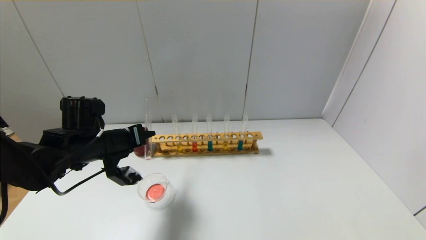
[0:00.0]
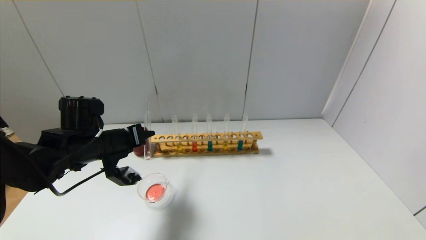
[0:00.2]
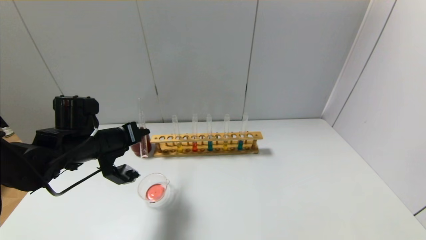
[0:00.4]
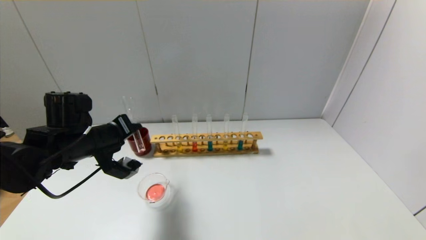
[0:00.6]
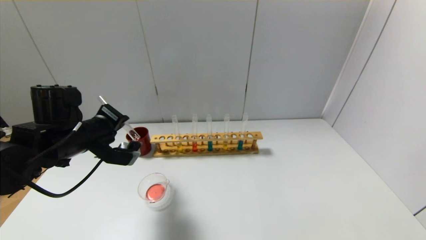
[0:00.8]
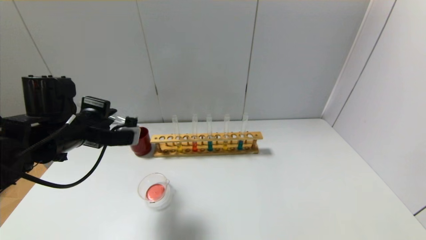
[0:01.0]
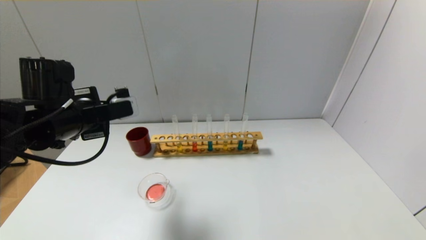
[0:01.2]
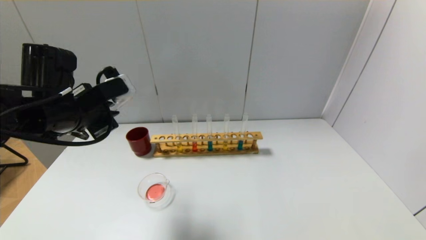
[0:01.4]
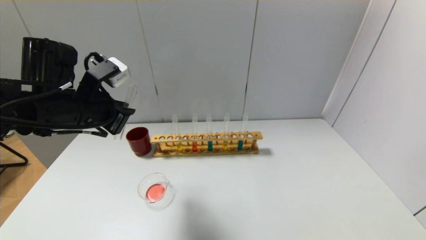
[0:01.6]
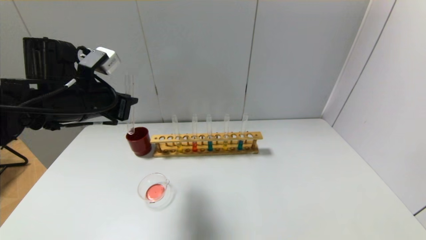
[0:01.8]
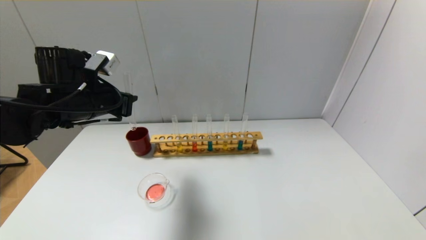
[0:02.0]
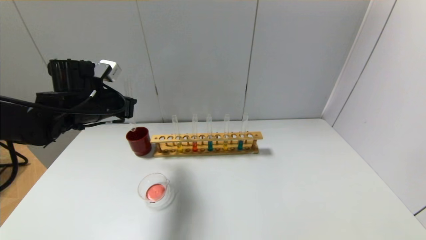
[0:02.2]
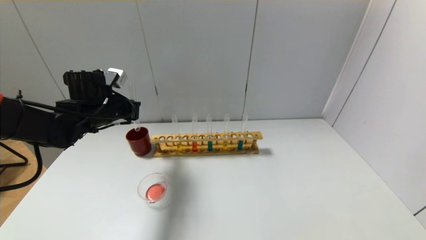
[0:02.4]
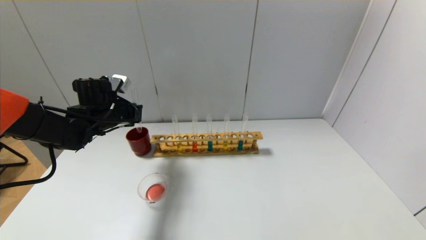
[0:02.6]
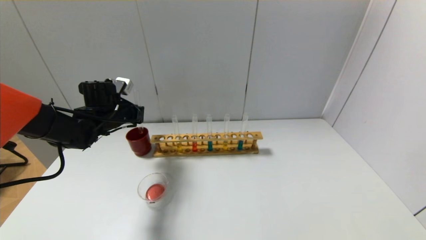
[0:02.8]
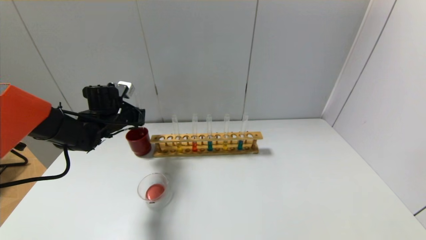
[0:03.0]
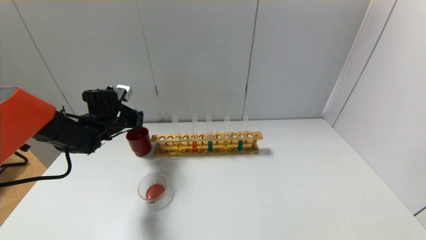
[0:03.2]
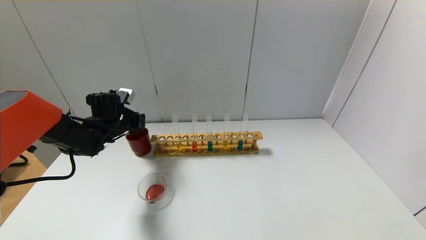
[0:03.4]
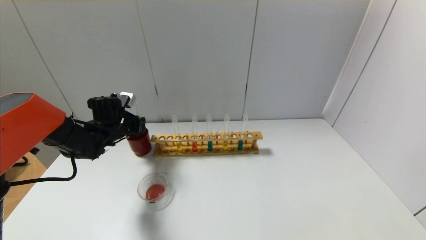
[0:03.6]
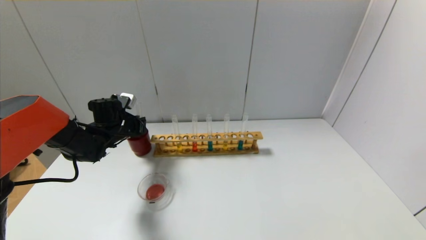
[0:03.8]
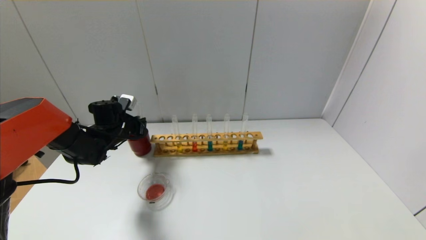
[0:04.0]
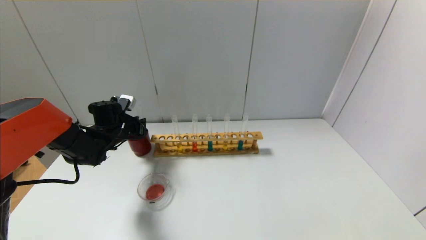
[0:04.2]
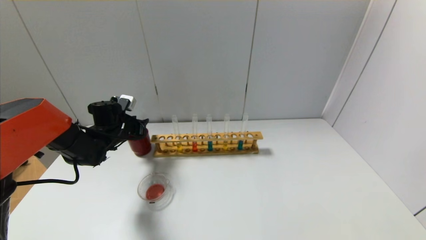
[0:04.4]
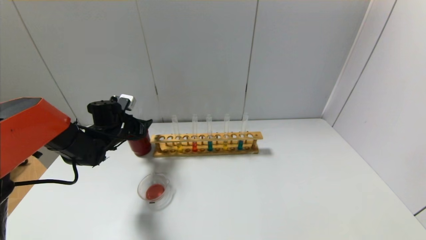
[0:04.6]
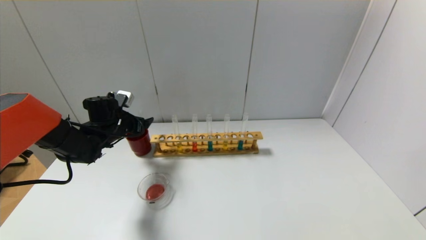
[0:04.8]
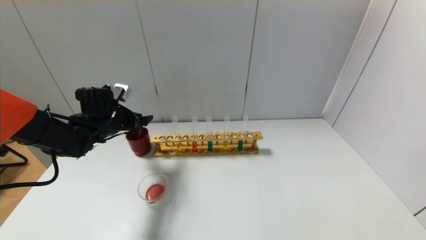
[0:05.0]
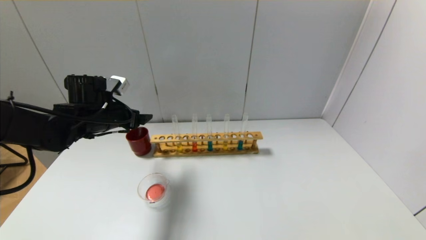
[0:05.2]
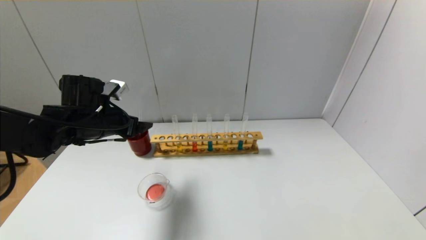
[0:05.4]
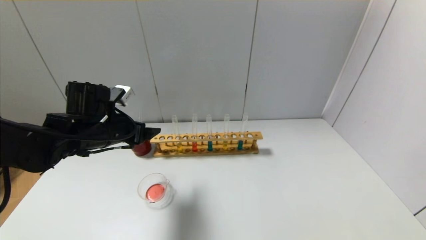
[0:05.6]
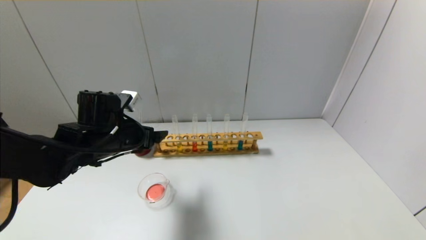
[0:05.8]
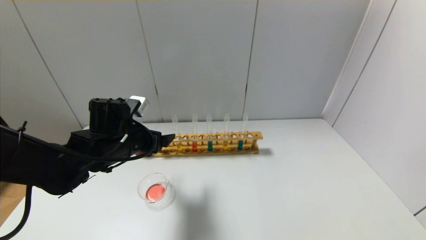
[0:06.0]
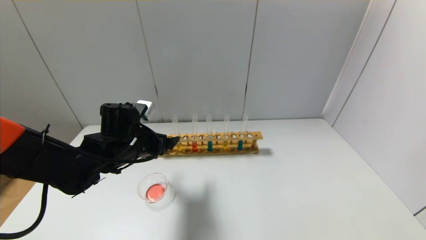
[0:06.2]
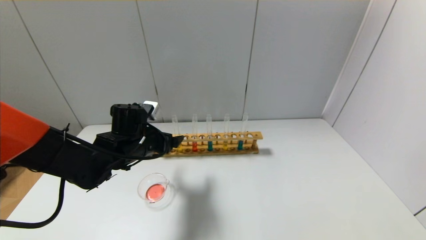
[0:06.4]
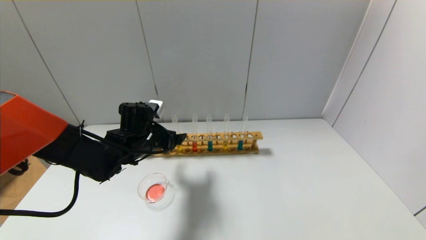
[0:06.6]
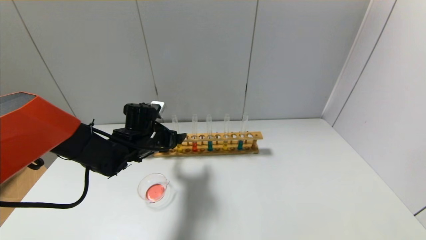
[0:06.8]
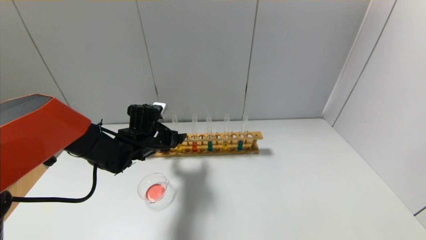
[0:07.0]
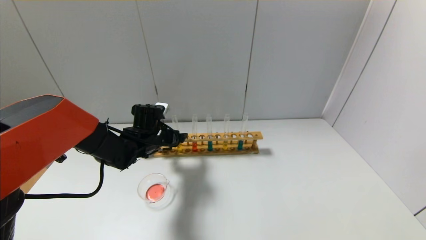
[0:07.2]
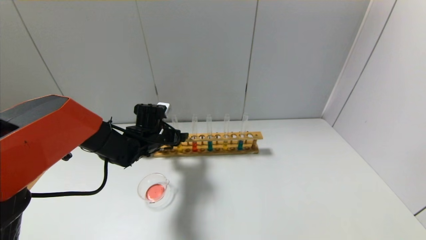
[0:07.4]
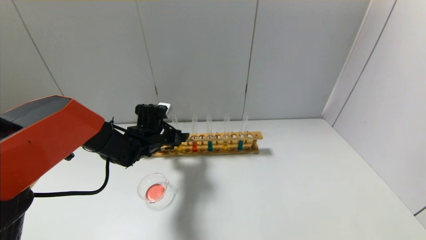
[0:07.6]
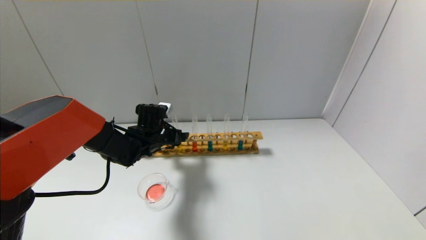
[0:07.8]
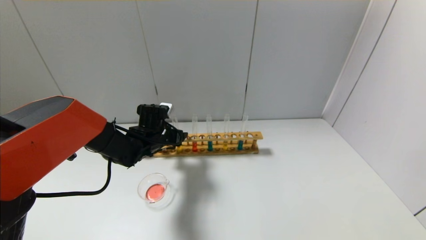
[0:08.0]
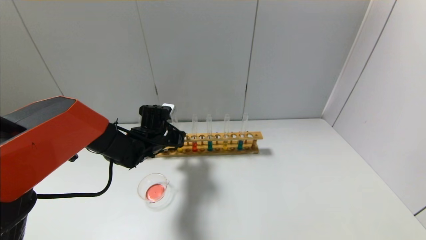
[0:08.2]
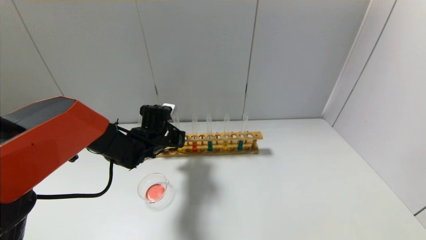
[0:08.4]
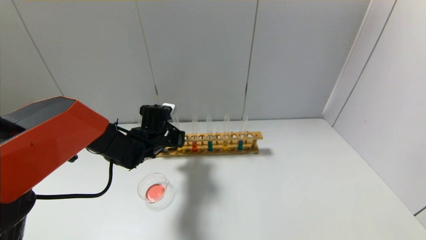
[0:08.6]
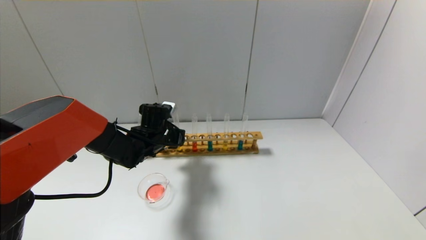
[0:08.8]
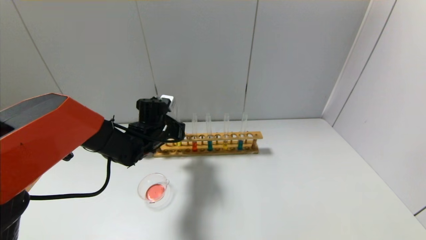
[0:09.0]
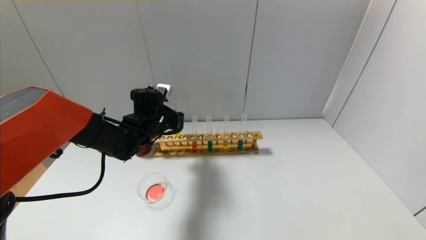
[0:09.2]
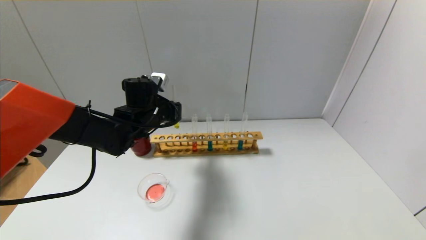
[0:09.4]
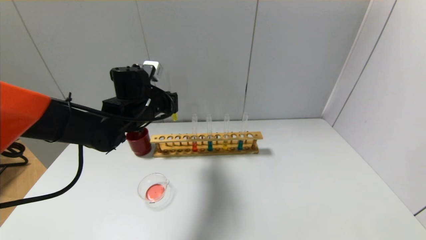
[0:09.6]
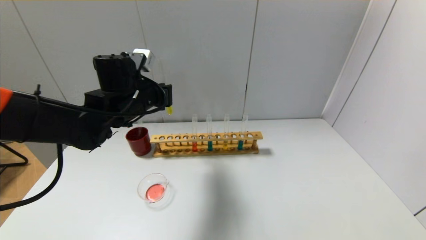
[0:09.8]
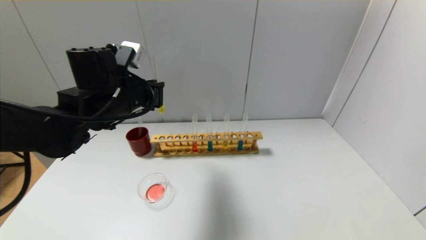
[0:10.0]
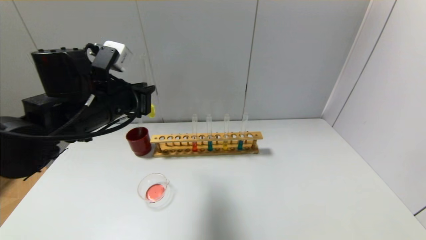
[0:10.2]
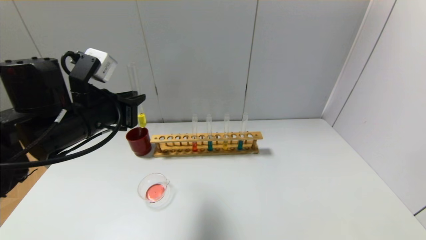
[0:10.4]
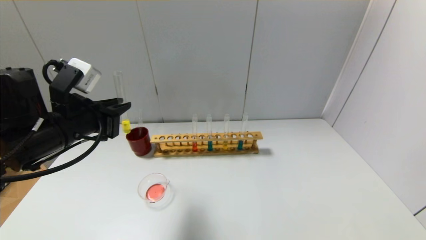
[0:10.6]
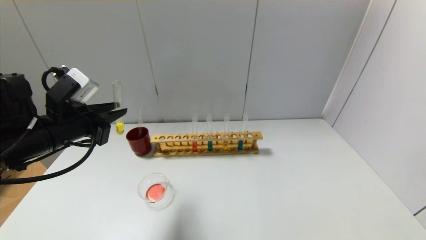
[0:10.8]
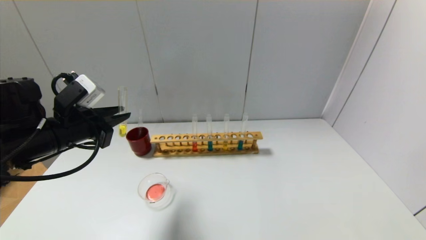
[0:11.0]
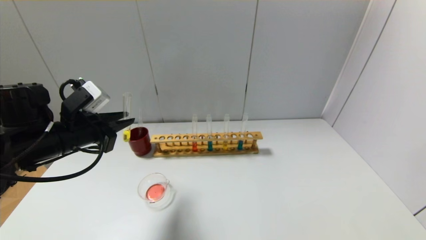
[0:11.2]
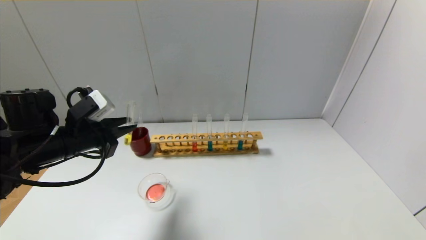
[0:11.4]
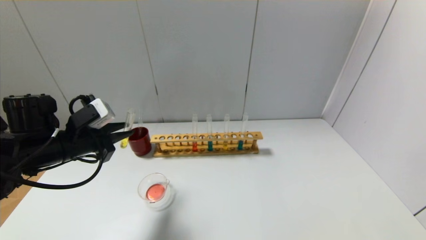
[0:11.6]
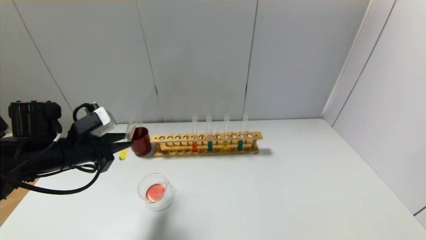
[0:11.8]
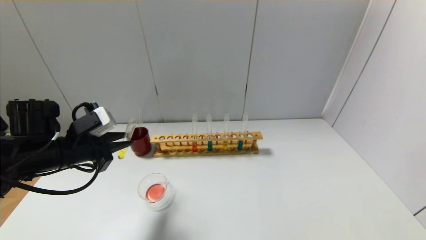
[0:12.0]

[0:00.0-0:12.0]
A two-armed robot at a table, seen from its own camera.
Step, 0:00.6 to 0:04.6: Place the test tube into the brown cup with the left gripper.
Step, 0:04.8 to 0:08.4: Grasp the yellow reagent with the left gripper.
0:00.0 to 0:01.6: The left gripper heads upward, covering approximately 10 cm.
0:01.6 to 0:03.0: The left gripper heads forward and downward, covering some 20 cm.
0:03.0 to 0:04.4: The left gripper opens.
0:04.4 to 0:06.0: The left gripper heads backward, to the right and upward, covering some 15 cm, and opens up.
0:06.0 to 0:07.6: The left gripper goes about 10 cm forward and downward.
0:07.6 to 0:09.0: The left gripper closes its fingers.
0:09.0 to 0:10.4: The left gripper travels backward, upward and to the left by approximately 20 cm.
0:10.4 to 0:12.0: The left gripper goes about 10 cm downward and to the left.

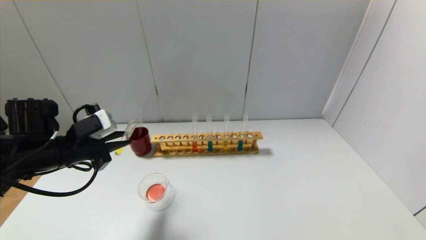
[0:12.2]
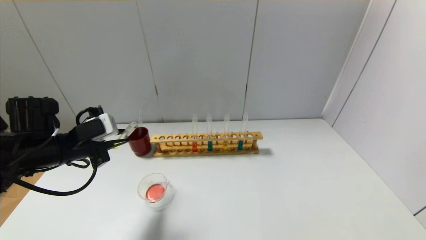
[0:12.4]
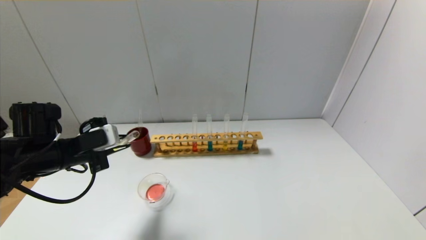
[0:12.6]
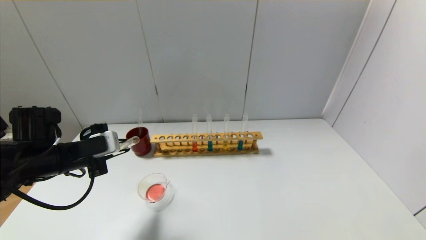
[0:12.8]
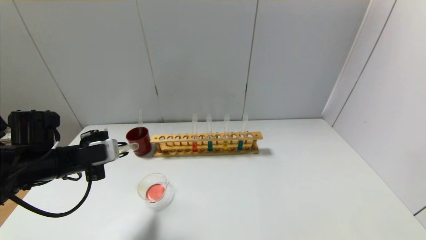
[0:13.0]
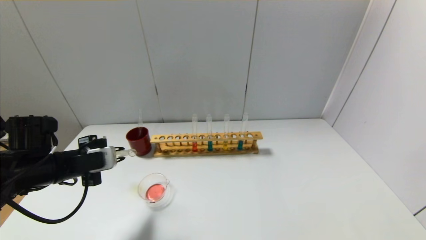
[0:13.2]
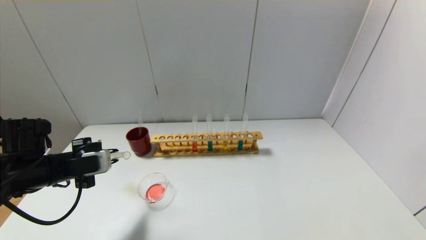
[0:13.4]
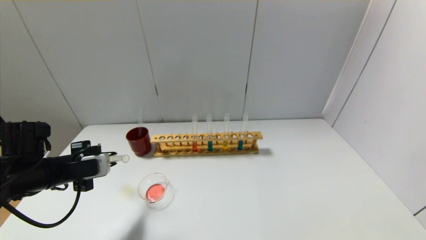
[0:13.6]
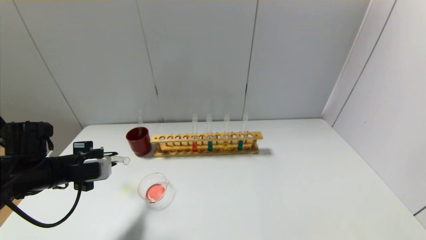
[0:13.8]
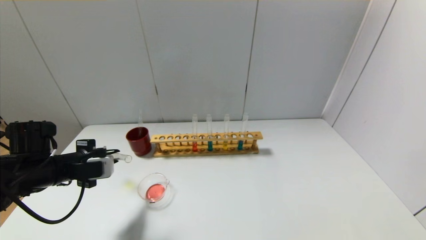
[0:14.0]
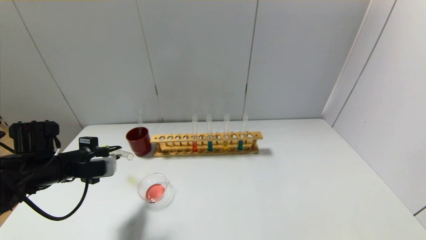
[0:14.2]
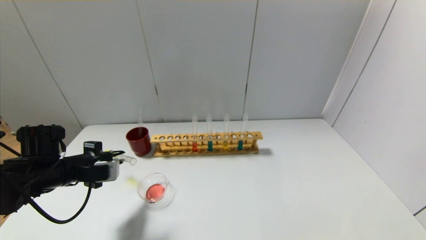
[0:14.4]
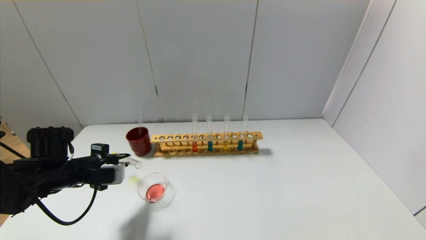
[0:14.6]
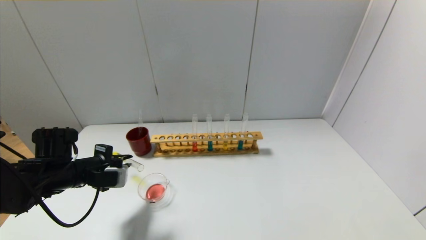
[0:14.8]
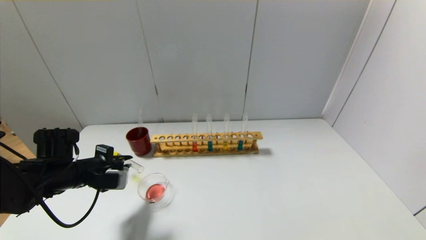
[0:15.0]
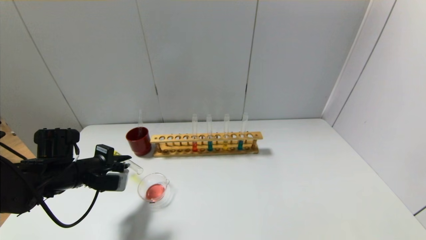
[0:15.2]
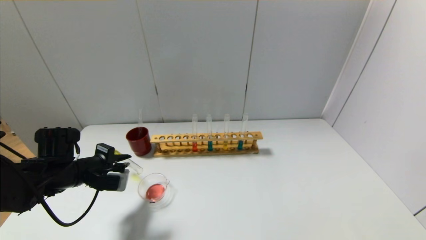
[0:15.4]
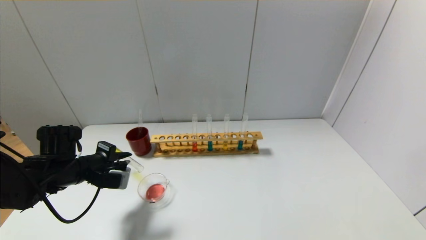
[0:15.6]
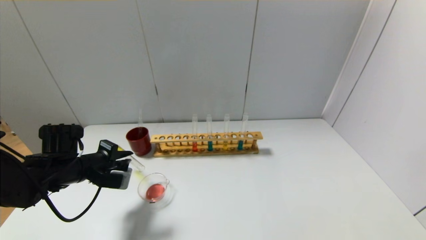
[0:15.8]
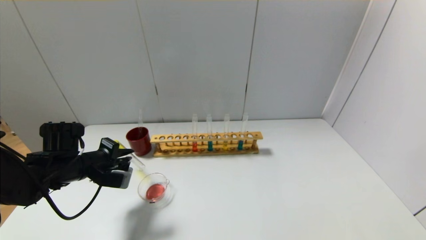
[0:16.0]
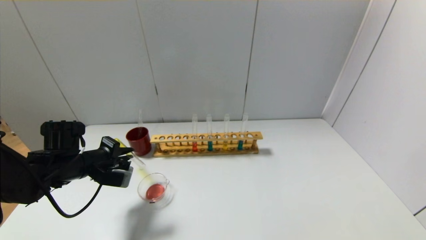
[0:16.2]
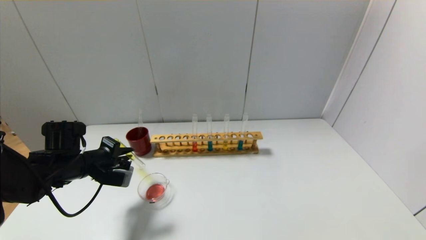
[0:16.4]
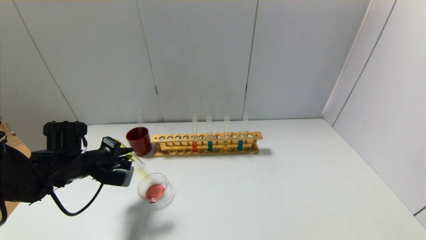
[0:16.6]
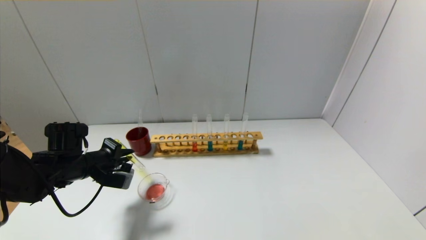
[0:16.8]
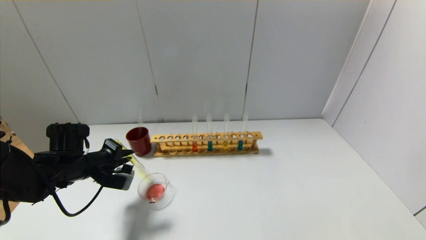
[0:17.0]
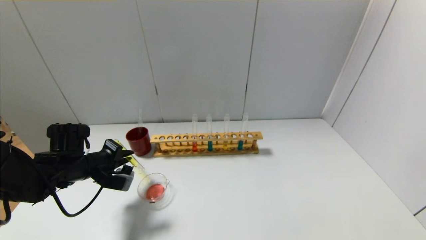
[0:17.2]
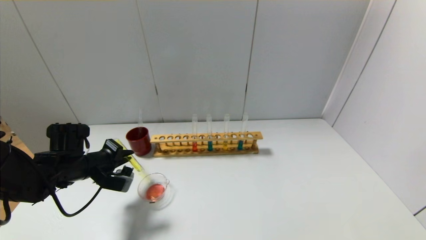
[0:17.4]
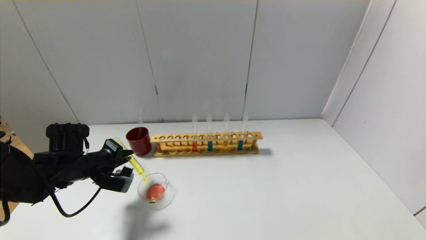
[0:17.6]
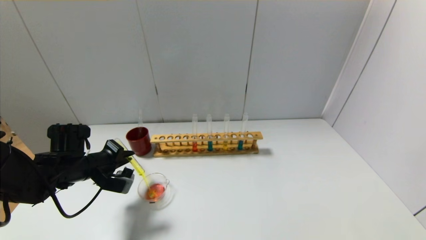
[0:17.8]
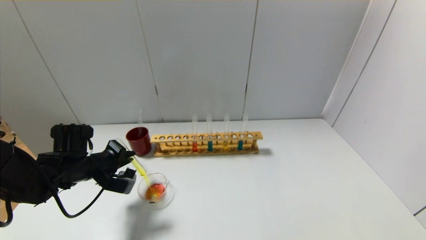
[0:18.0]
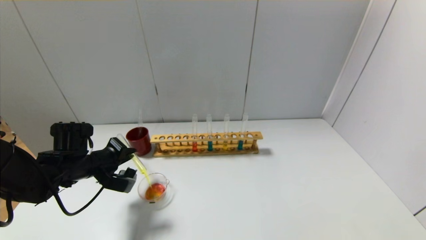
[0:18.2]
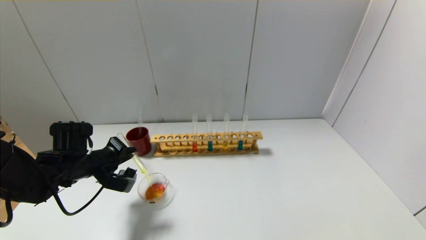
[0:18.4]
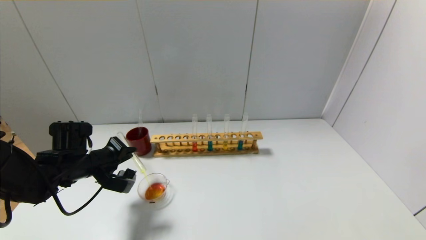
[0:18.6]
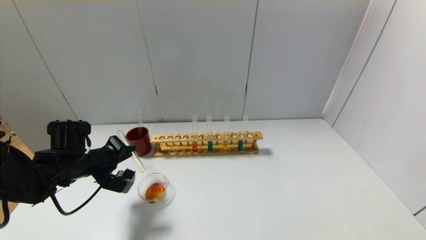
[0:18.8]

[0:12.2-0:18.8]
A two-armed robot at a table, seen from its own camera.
0:12.2 to 0:13.8: The left gripper shifts by about 5 cm.
0:13.8 to 0:15.4: The grippers stay close to where they were, moving slightly.
0:15.4 to 0:17.2: There are only small adjustments of the grippers.
0:17.2 to 0:18.8: The grippers stay close to where they were, moving slightly.
